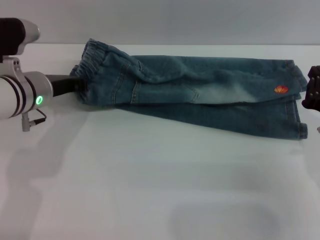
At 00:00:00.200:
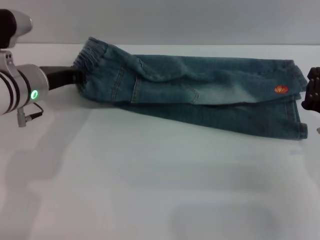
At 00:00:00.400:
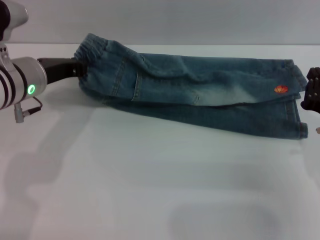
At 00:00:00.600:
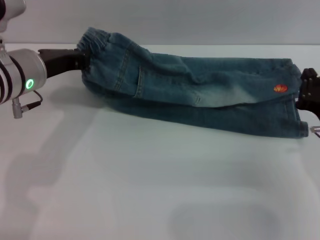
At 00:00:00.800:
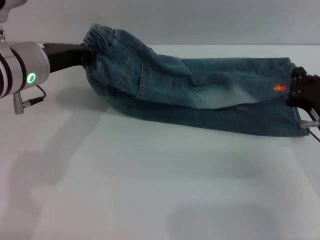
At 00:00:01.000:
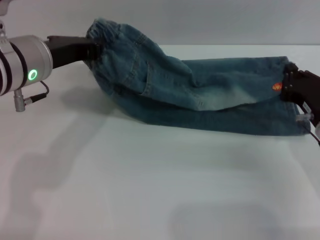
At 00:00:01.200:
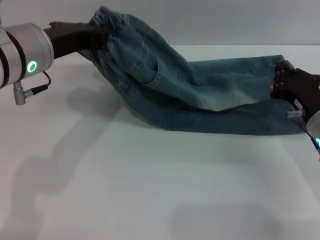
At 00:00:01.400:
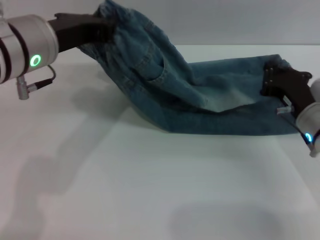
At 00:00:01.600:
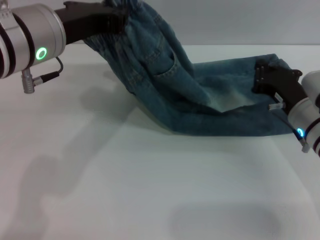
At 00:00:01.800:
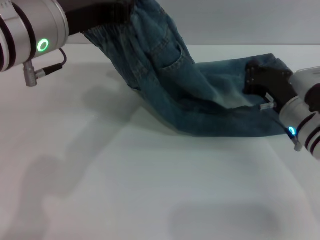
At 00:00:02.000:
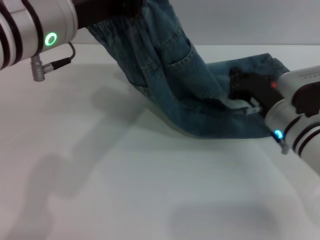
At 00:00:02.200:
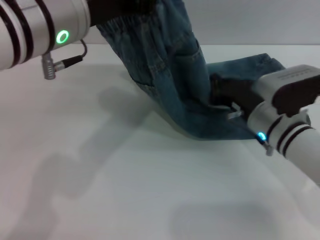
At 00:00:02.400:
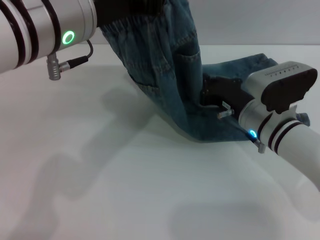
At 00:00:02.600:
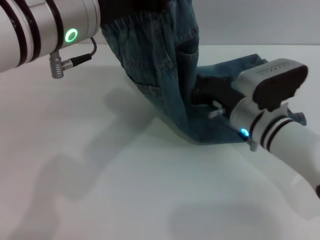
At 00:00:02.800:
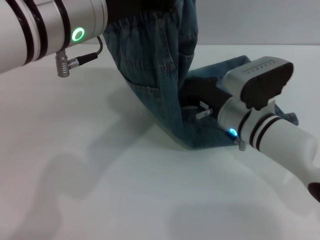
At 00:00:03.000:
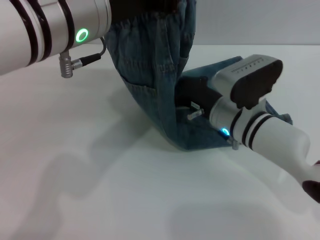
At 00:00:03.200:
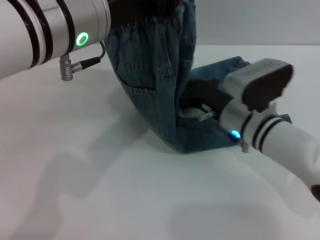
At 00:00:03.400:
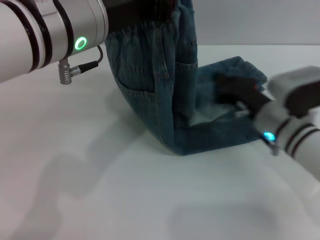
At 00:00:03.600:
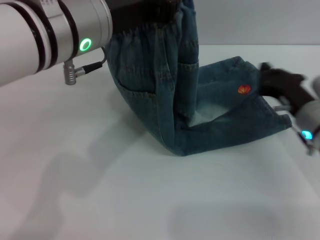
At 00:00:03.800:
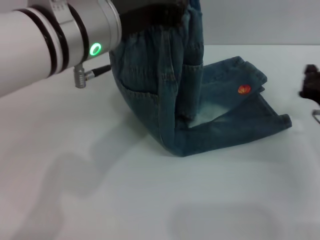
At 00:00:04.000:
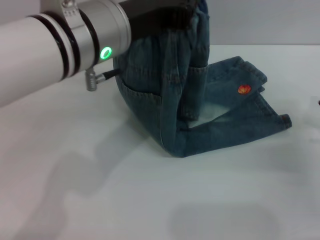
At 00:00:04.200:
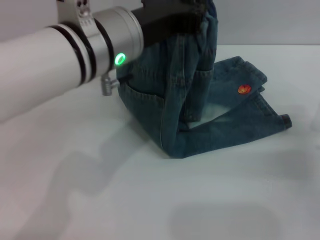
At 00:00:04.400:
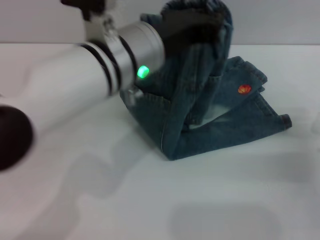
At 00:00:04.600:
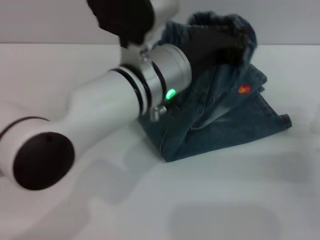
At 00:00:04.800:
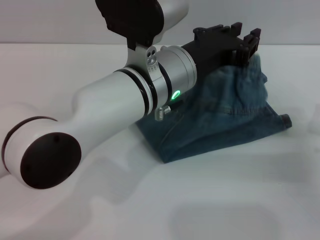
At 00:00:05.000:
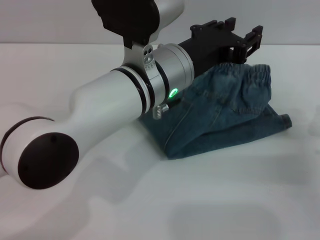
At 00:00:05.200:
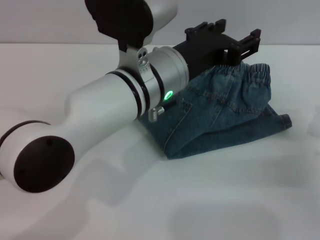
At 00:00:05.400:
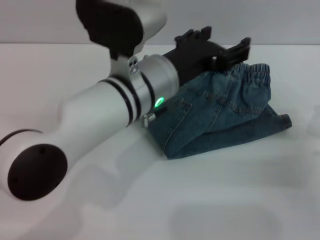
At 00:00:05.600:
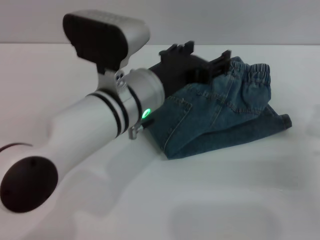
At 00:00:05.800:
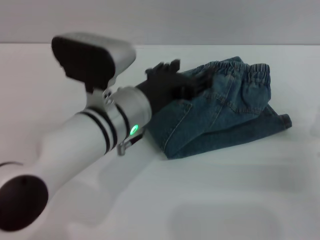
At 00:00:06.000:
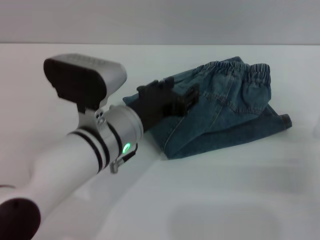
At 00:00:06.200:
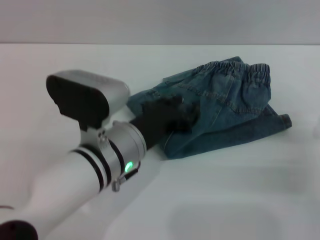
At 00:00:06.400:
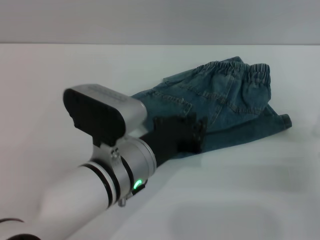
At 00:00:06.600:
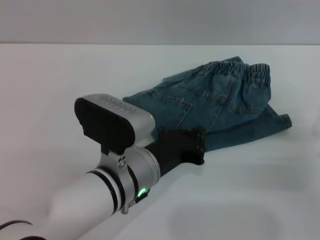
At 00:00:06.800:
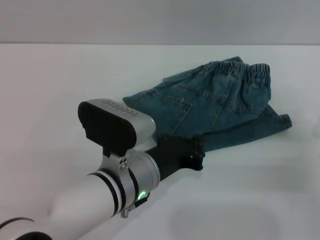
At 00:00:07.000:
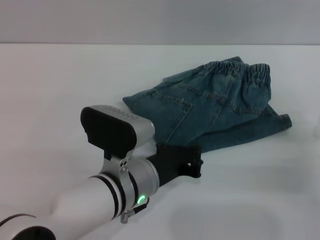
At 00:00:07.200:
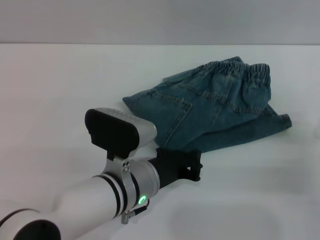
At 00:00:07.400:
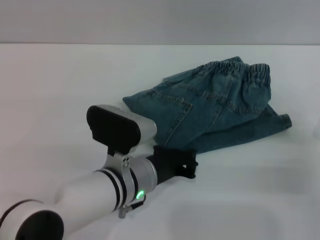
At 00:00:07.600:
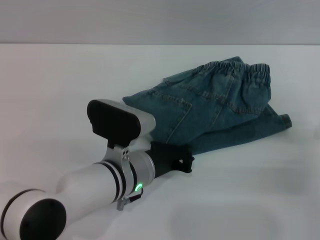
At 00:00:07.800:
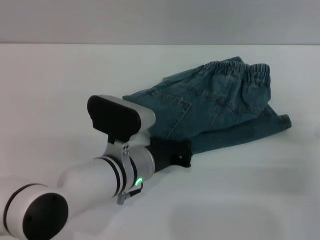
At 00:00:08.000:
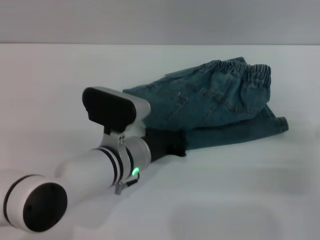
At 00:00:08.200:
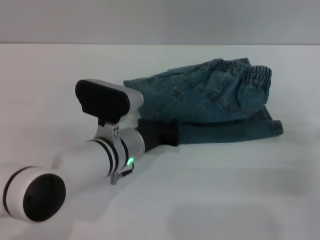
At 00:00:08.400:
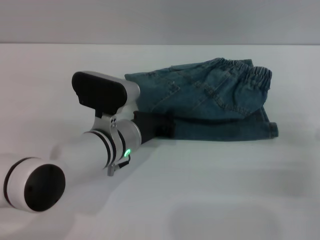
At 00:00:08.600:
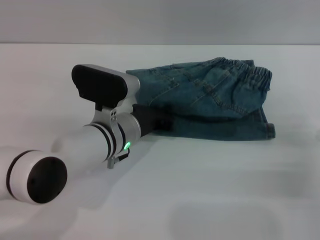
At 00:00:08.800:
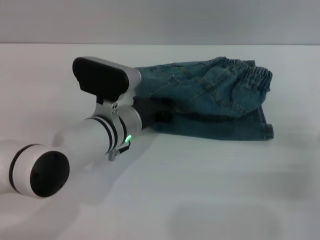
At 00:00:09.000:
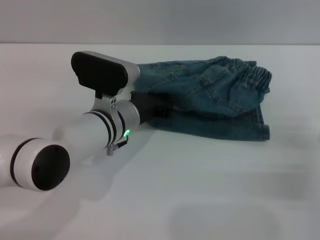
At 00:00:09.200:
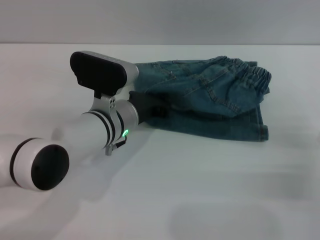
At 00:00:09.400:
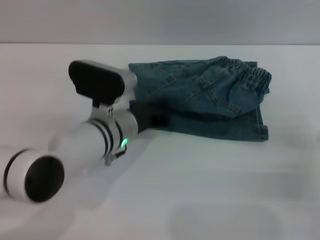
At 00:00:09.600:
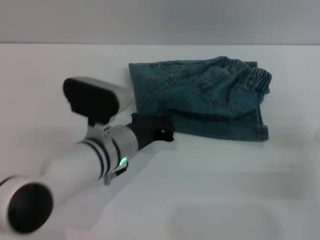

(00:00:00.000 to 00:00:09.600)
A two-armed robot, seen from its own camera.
Step, 00:00:00.000 - 00:00:05.200: Fold the pants from left to right with the left gripper.
00:00:00.000 - 00:00:01.600: The right gripper travels forward by about 10 cm; the left gripper shifts approximately 15 cm upward, backward and to the right.
00:00:01.600 - 00:00:03.200: The right gripper shifts some 10 cm to the left; the left gripper changes place by roughly 5 cm.
00:00:03.200 - 00:00:04.800: The left gripper goes about 10 cm downward and to the right. Meanwhile the right gripper is displaced to the right and backward by about 20 cm.
00:00:04.800 - 00:00:06.400: The left gripper is displaced downward and backward by approximately 10 cm, and opens, then closes again.
00:00:06.400 - 00:00:08.000: The left gripper heads forward, covering about 5 cm, and closes.
00:00:08.000 - 00:00:09.600: The grippers make only small movements.

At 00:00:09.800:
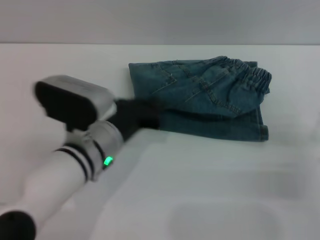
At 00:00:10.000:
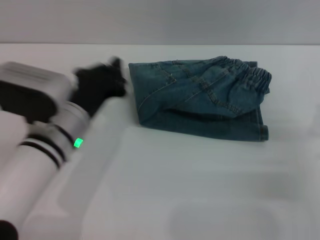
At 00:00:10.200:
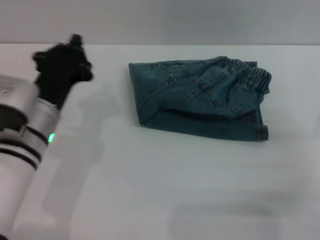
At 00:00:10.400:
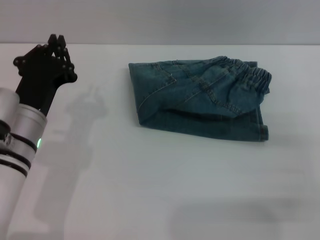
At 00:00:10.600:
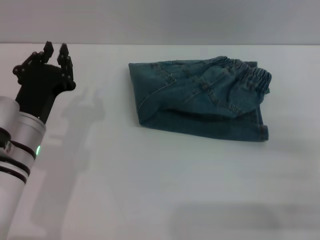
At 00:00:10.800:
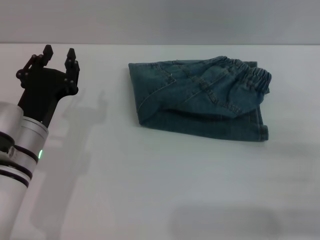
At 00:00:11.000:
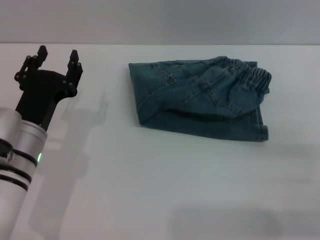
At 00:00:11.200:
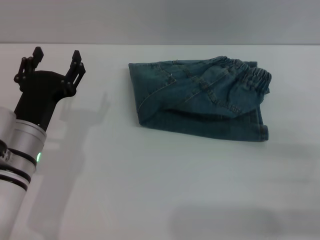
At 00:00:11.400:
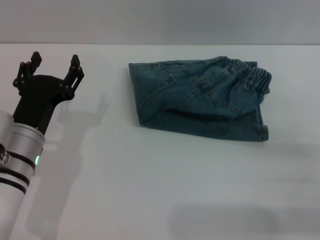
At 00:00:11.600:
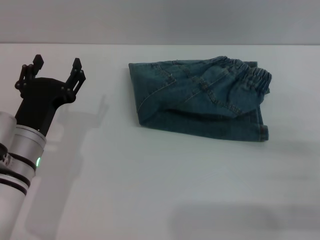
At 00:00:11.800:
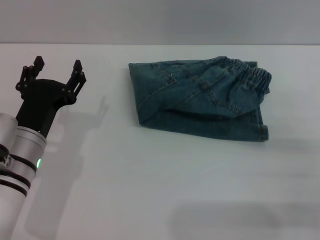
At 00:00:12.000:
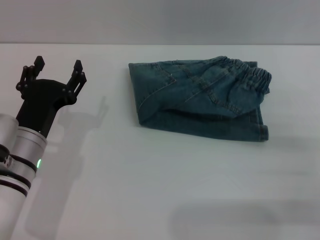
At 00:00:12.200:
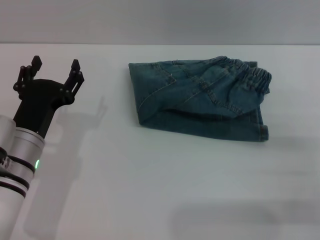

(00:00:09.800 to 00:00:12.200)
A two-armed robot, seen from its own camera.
00:00:09.800 - 00:00:11.000: The left gripper is displaced to the left by roughly 10 cm, and opens its fingers, while the right gripper opens up.
00:00:11.000 - 00:00:12.200: The left gripper opens up.
